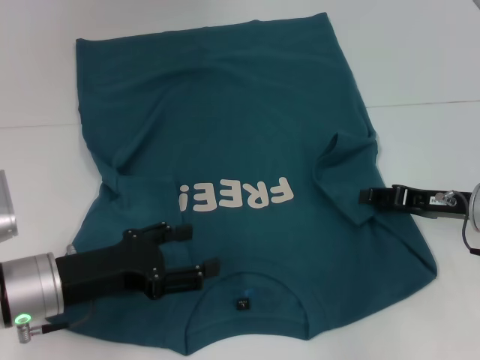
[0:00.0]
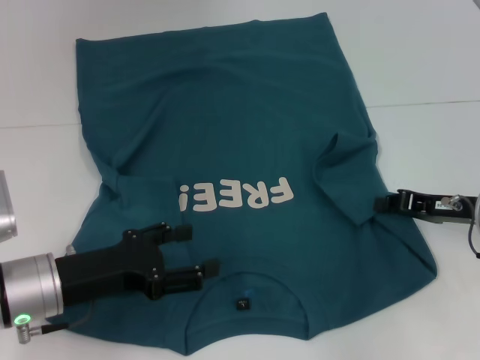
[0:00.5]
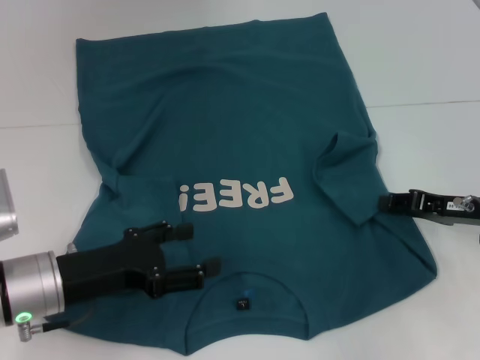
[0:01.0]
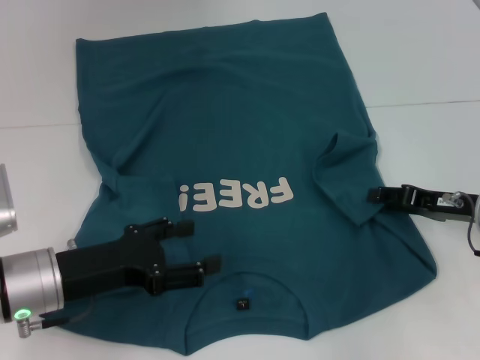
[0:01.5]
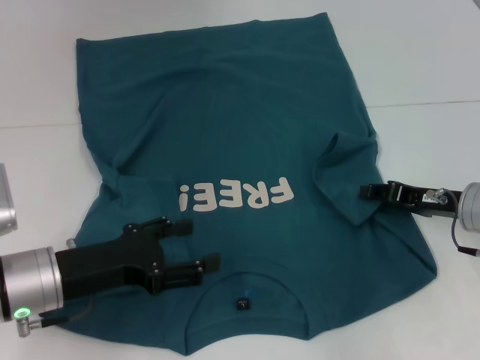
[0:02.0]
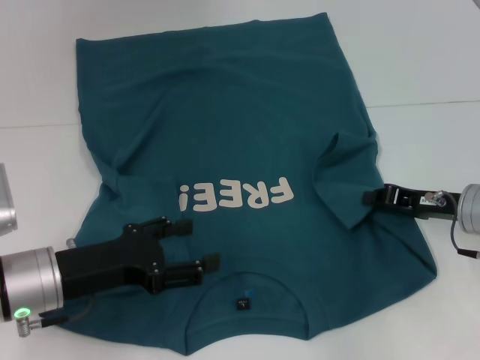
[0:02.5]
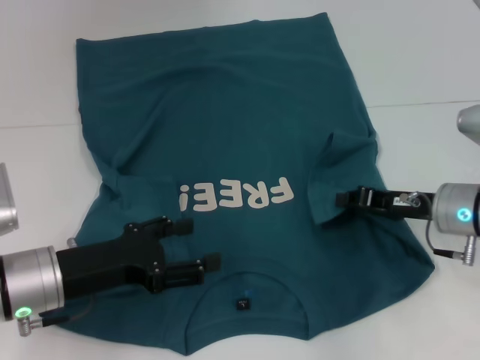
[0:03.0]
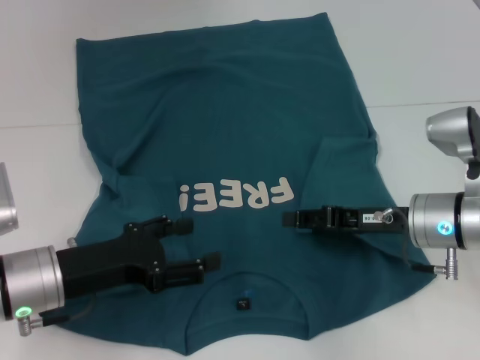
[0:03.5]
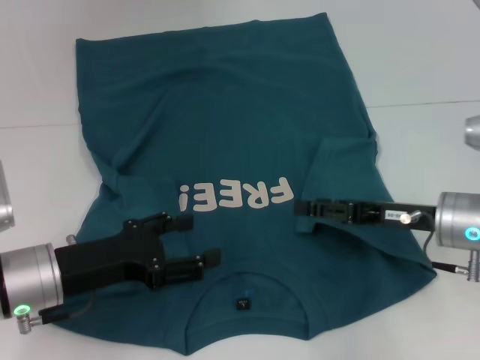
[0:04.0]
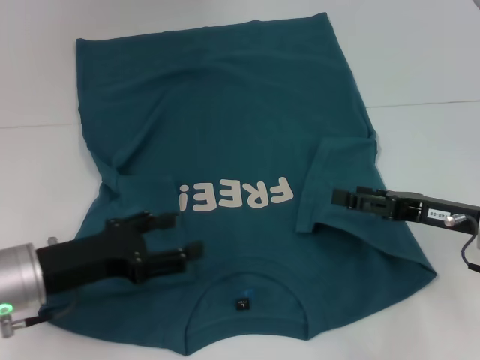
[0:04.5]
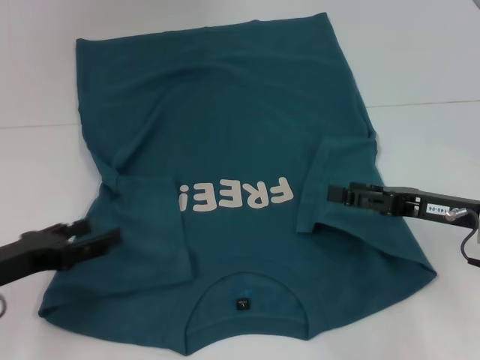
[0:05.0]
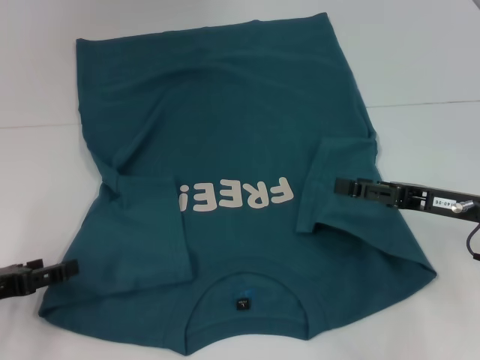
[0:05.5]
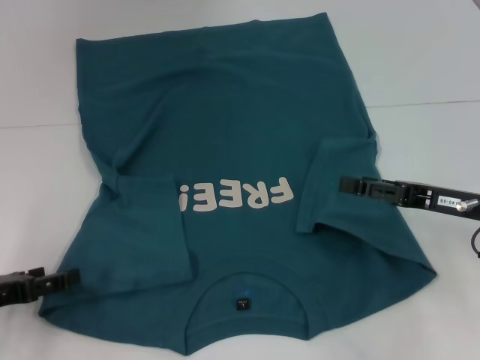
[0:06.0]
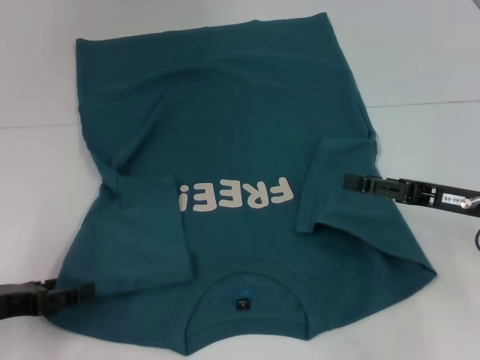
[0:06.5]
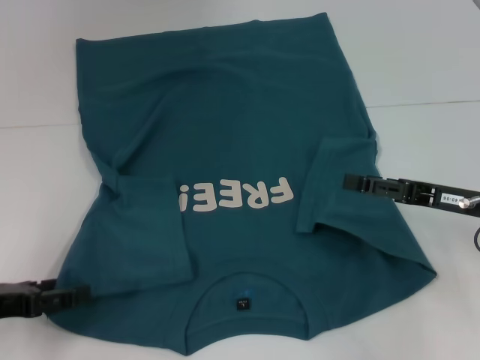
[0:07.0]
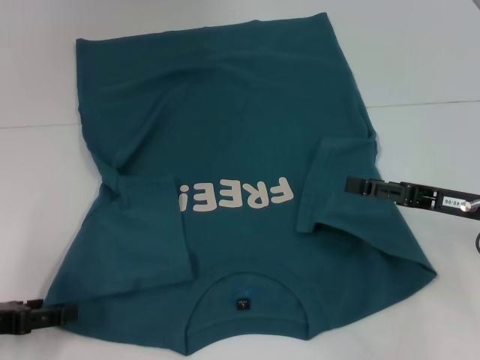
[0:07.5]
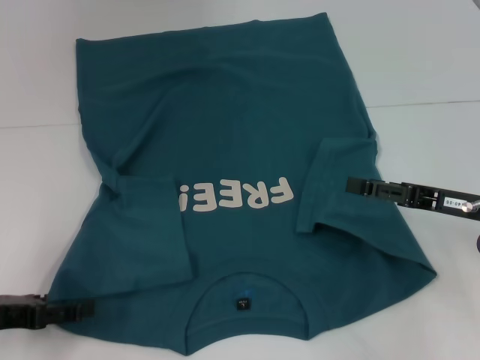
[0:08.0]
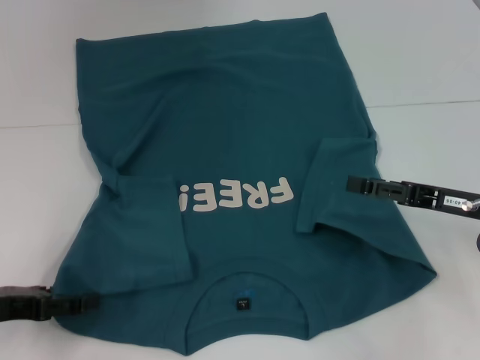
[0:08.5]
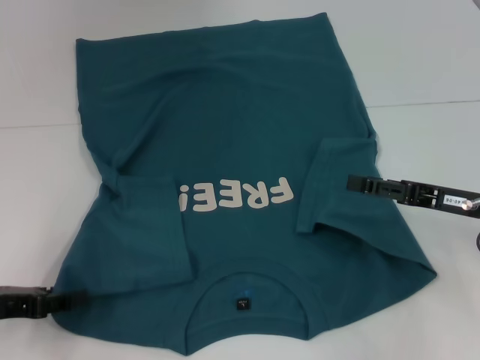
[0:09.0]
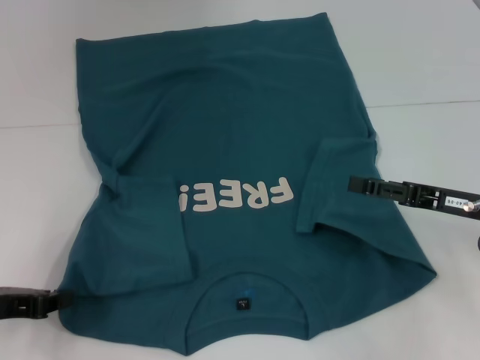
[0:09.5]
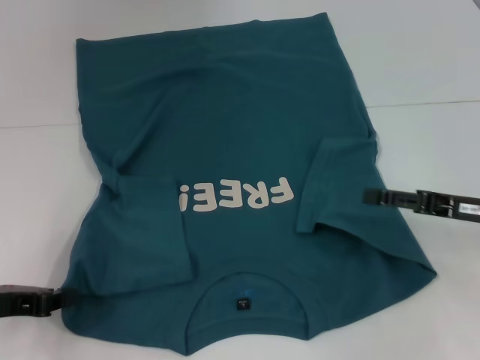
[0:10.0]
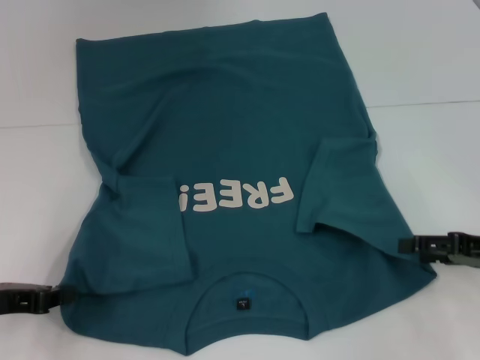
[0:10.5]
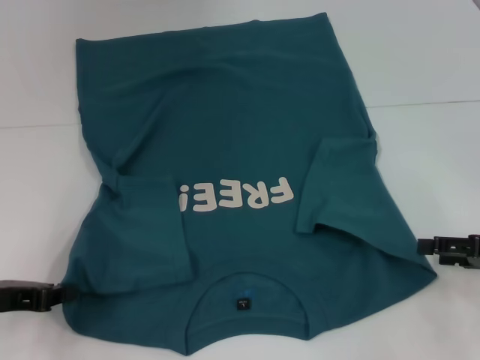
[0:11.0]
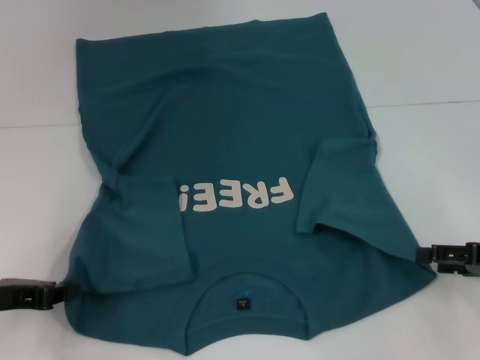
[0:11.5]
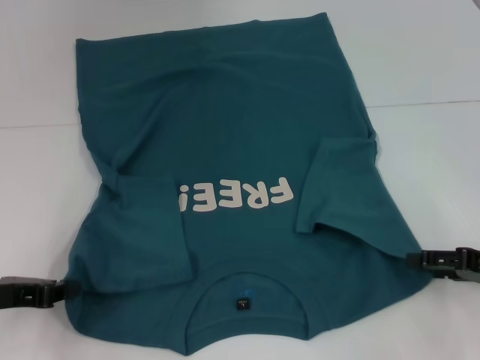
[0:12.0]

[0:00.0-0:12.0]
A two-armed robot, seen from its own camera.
Step, 0.0 to 3.5 s: Fold the bottom right sleeve to the right.
Step, 4.0 to 9.5 s: Grab the bottom left corner with your left hand.
0.0 to 2.0 s: The right gripper closes, then opens again.
2.0 to 4.0 s: The right gripper closes, then reopens.
4.0 to 6.0 s: The left gripper goes some 10 cm to the left.
6.0 to 8.0 s: The grippers stay close to where they were, moving slightly.
8.0 to 10.0 s: The left gripper closes.
10.0 to 12.0 s: The right gripper changes place by approximately 5 cm.

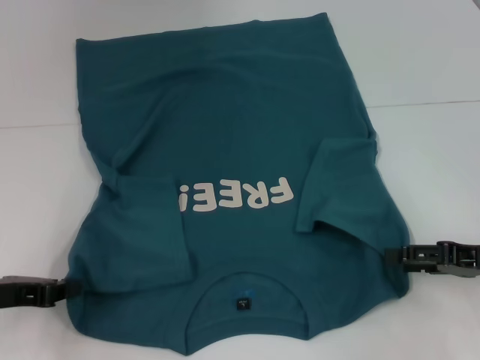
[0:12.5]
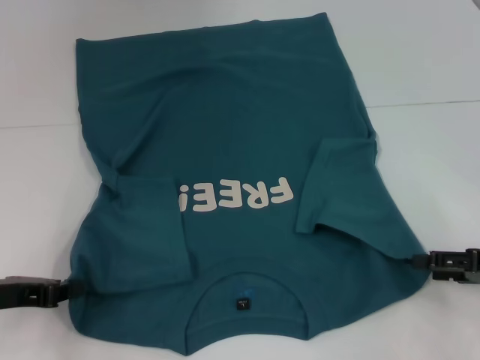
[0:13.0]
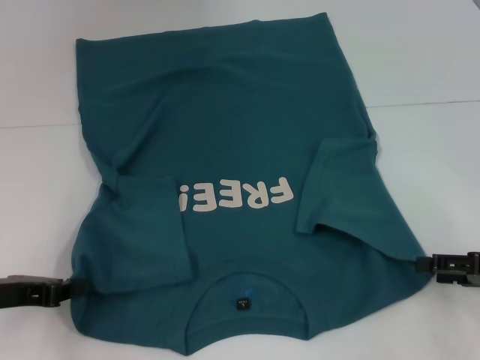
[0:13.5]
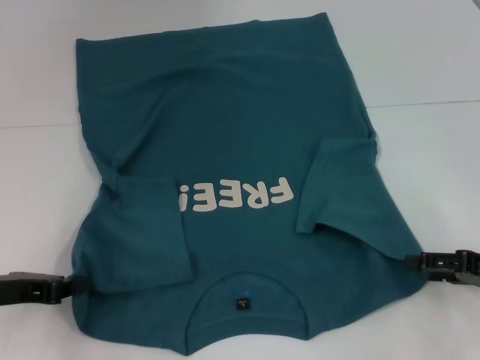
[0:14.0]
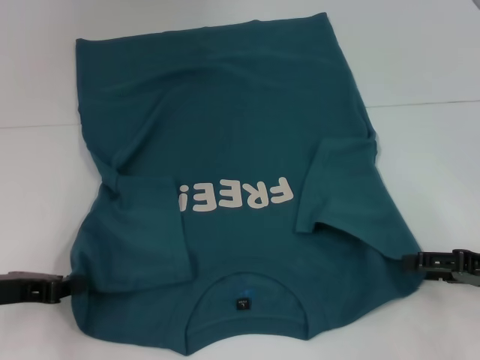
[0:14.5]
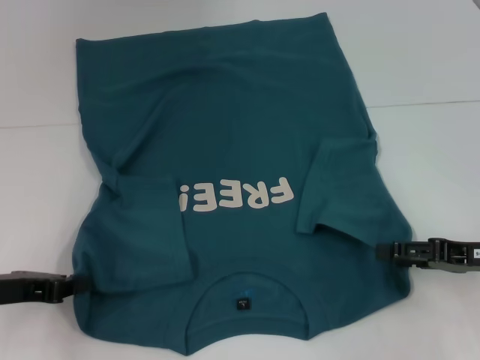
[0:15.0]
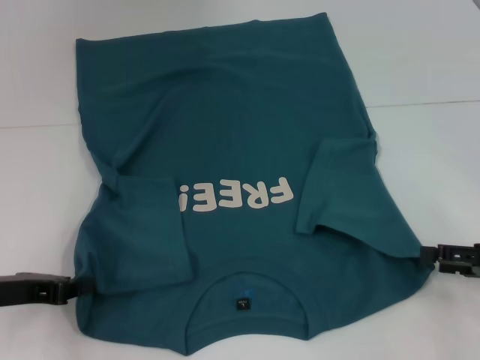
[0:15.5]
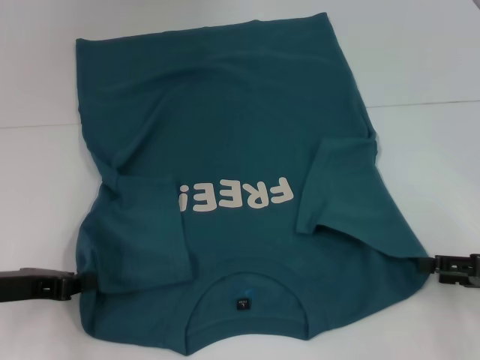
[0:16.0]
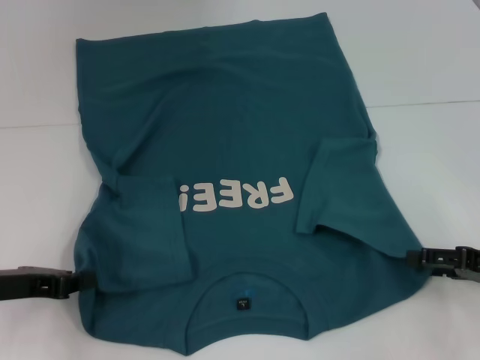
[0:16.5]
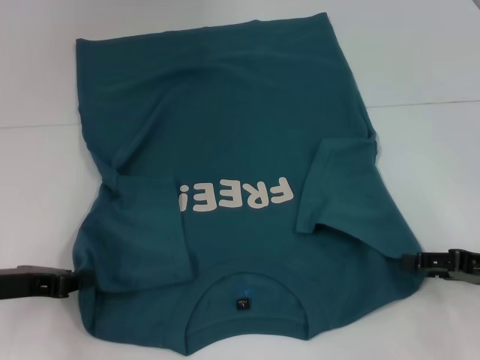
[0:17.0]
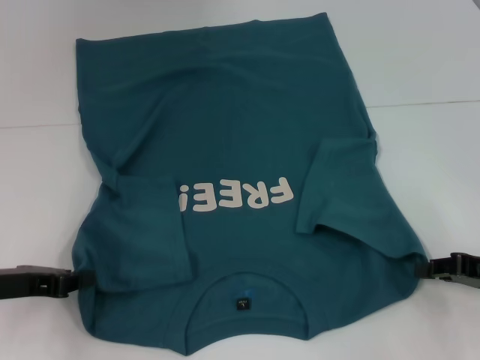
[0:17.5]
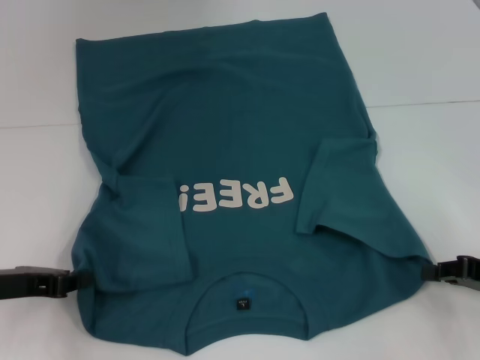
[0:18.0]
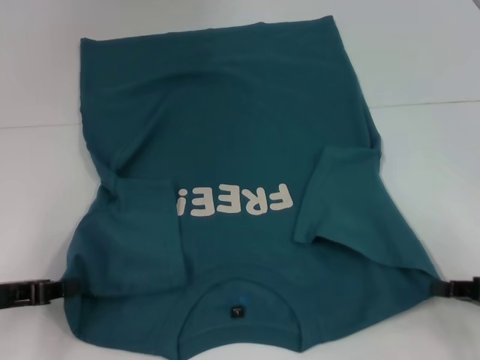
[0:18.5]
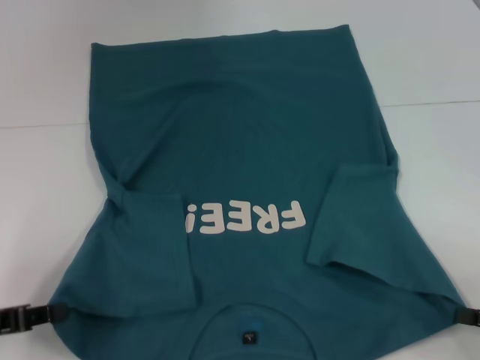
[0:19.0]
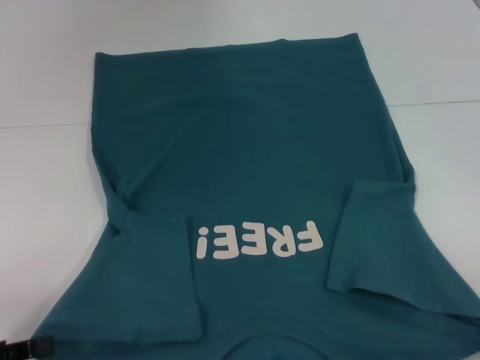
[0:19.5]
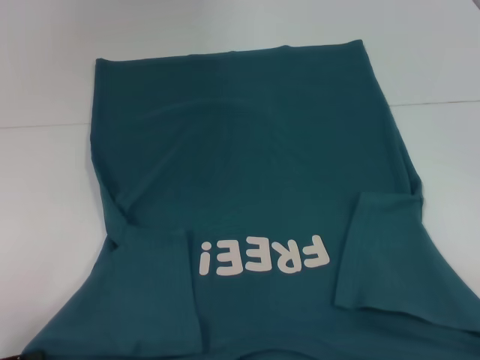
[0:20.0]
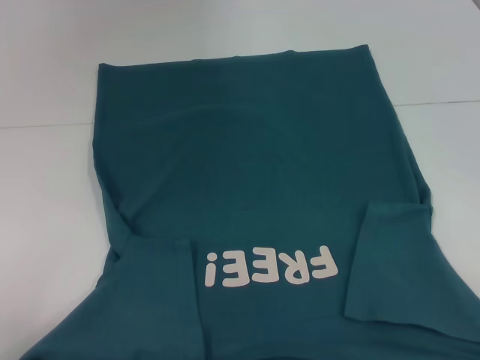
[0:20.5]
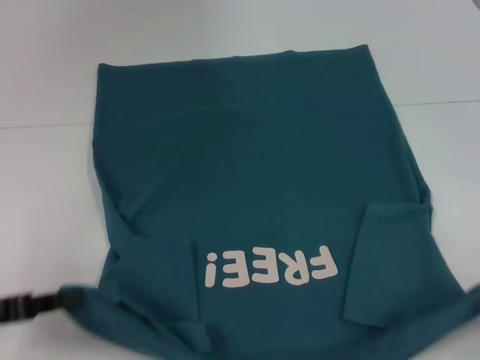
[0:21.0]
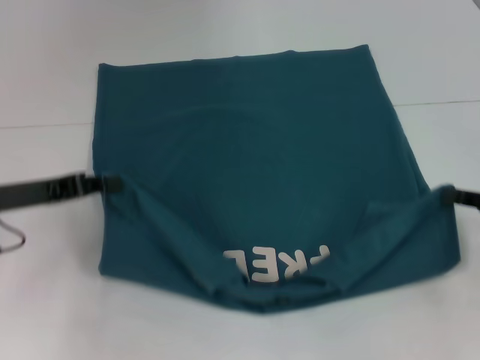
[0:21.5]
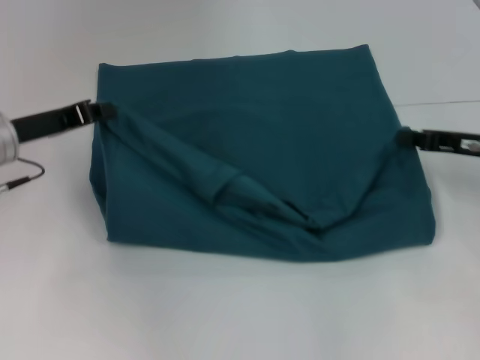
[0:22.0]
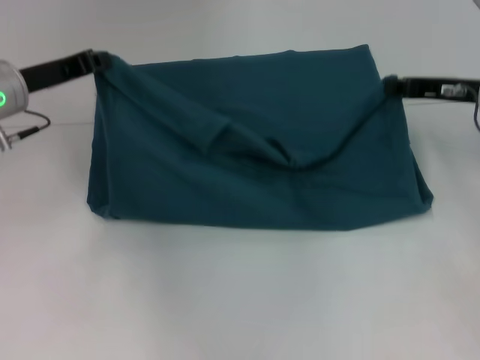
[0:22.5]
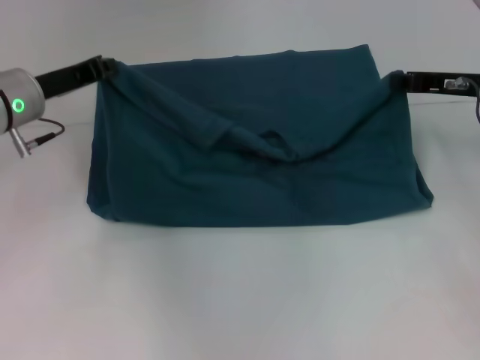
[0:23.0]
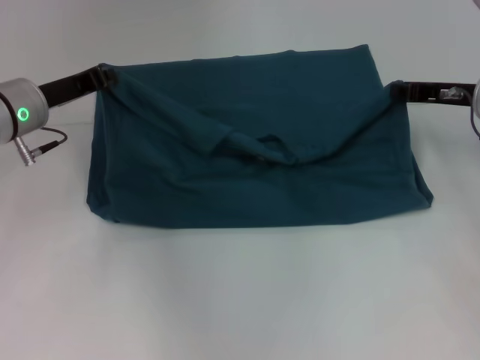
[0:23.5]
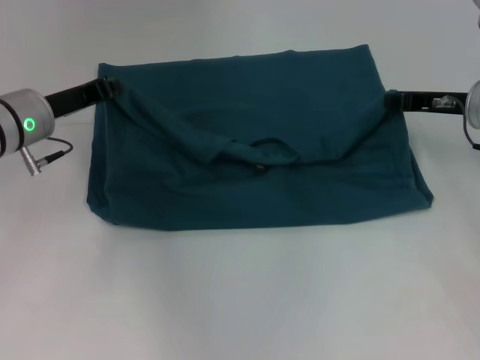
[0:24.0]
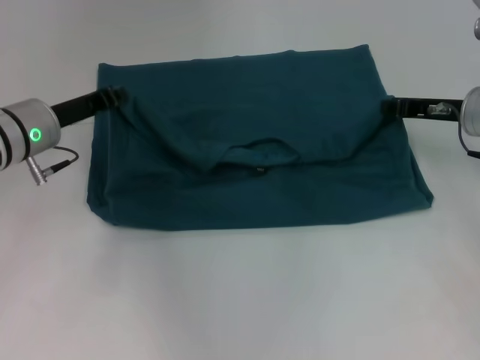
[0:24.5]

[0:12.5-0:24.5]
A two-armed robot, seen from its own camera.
Step, 12.5 to 17.5 s: Grab the bottom right corner with your right hand.
12.5 to 16.5 s: The grippers move only a little.
16.5 to 18.5 s: The right gripper closes.
18.5 to 20.5 s: The left gripper heads backward, covering roughly 10 cm. Meanwhile the right gripper is displaced backward and to the right by approximately 15 cm.
20.5 to 22.5 s: The left gripper moves forward and to the right, roughly 30 cm, while the right gripper heads forward, covering some 30 cm.
22.5 to 24.5 s: The grippers make only small movements.

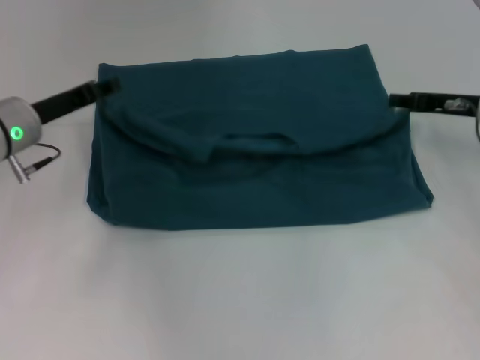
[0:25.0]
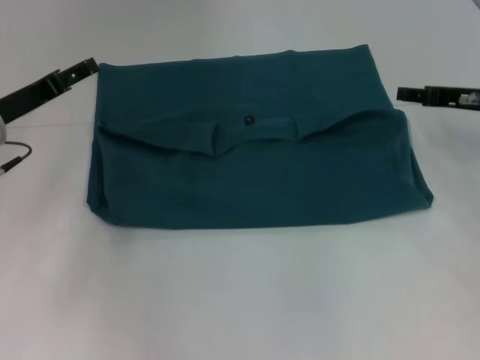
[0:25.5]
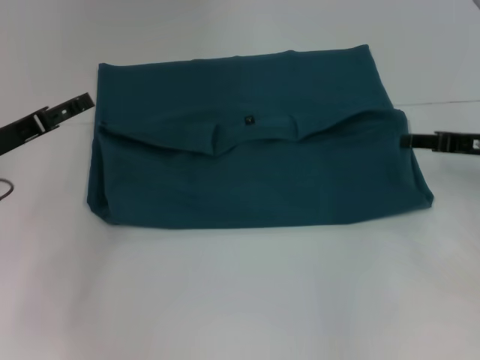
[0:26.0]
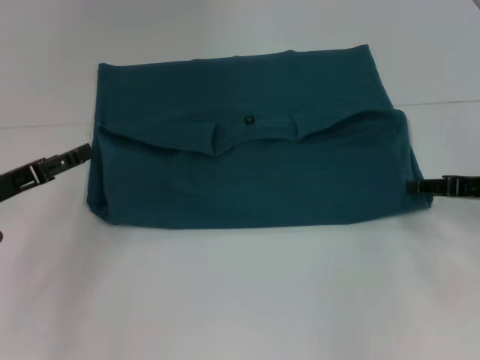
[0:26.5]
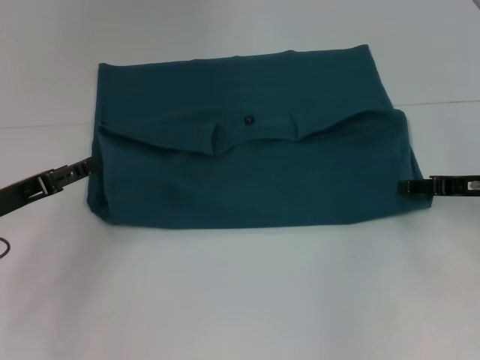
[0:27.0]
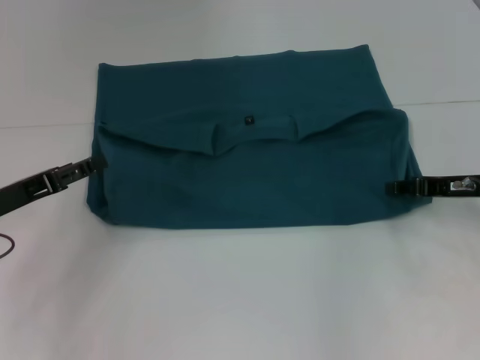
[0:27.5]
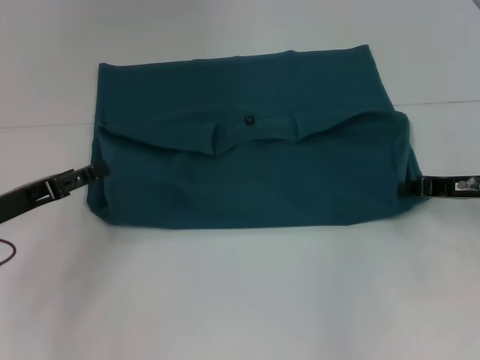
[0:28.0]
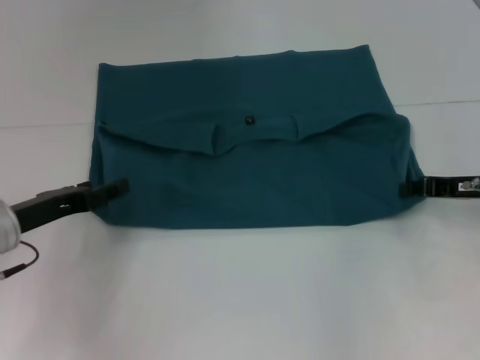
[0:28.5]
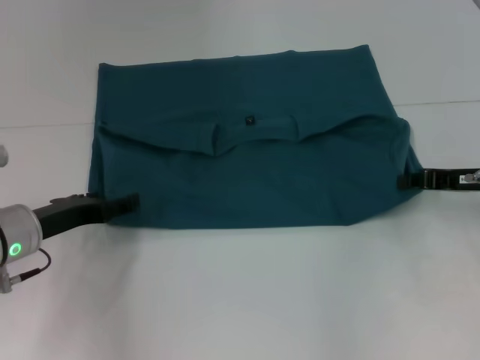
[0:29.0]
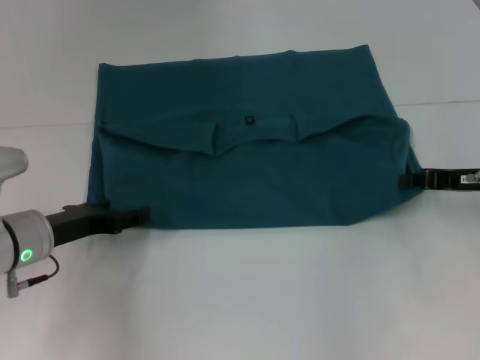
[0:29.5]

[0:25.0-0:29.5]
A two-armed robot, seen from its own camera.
25.0 to 27.0 s: The left gripper goes roughly 10 cm backward and to the left, and opens; the right gripper shifts approximately 5 cm backward, and opens.
27.0 to 29.5 s: The right gripper closes its fingers. Meanwhile the left gripper moves to the right, roughly 5 cm.
